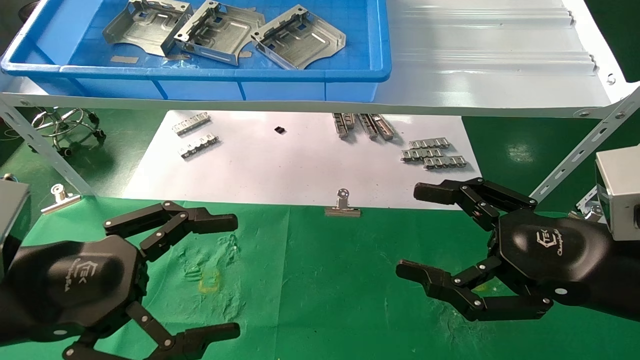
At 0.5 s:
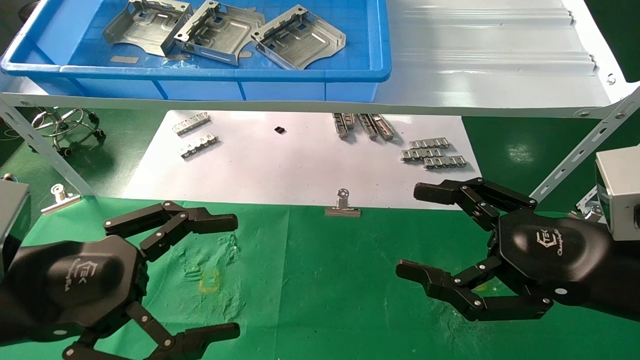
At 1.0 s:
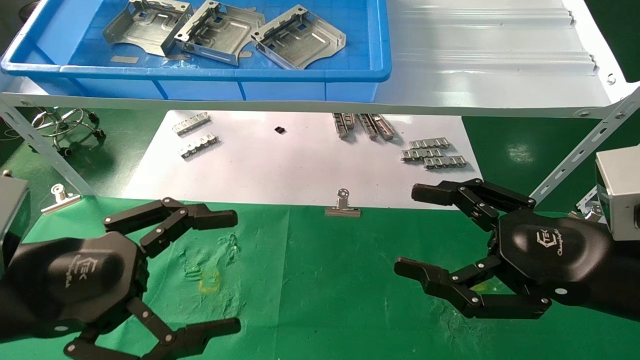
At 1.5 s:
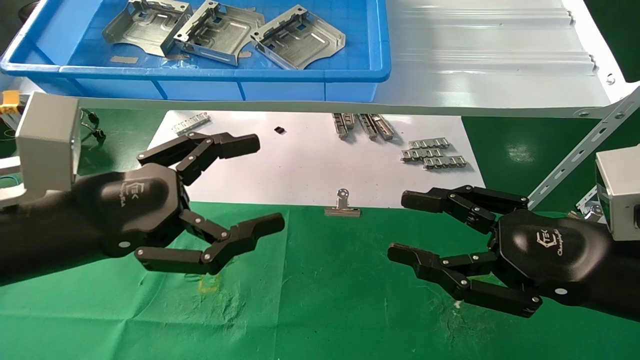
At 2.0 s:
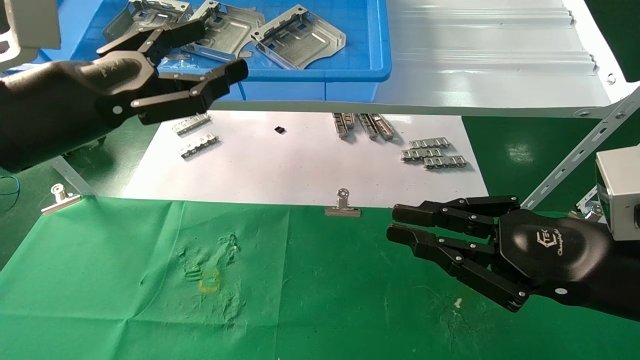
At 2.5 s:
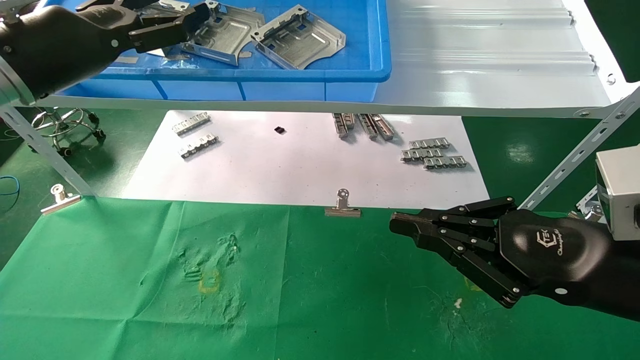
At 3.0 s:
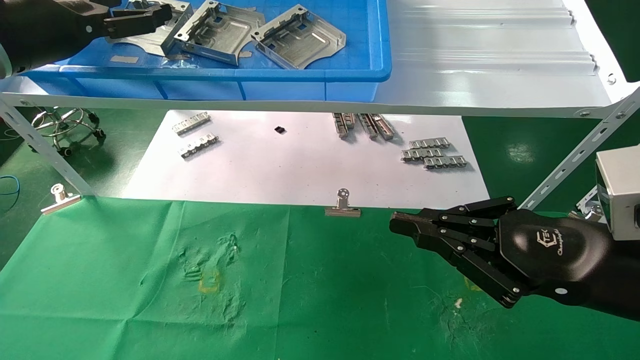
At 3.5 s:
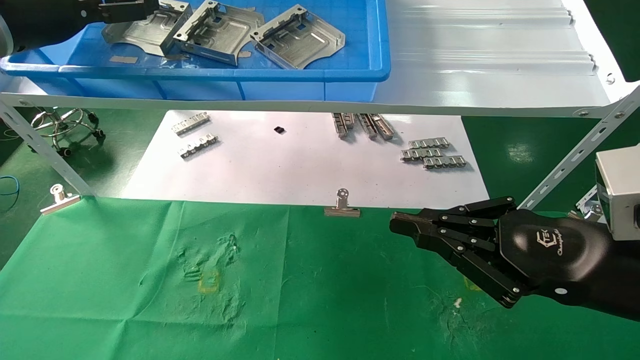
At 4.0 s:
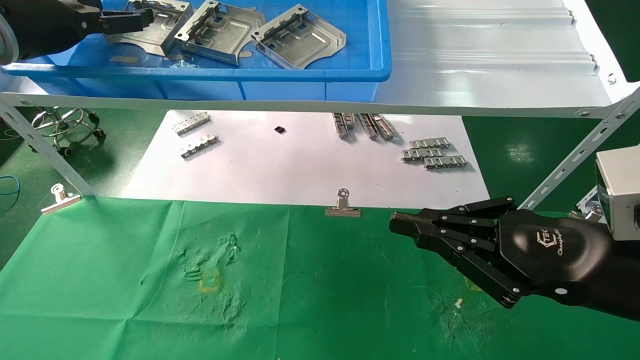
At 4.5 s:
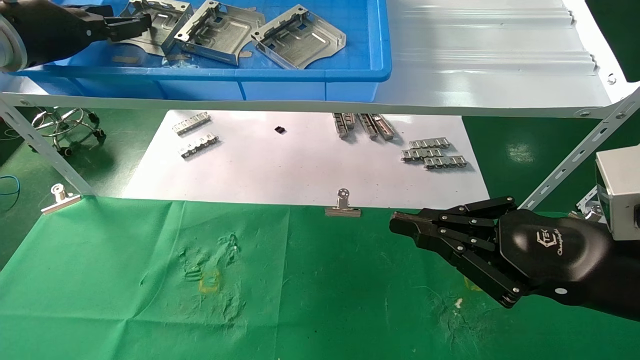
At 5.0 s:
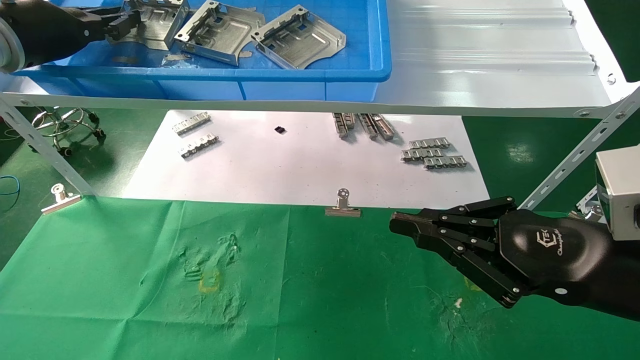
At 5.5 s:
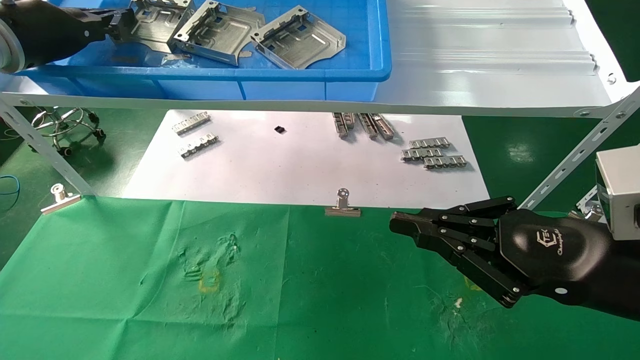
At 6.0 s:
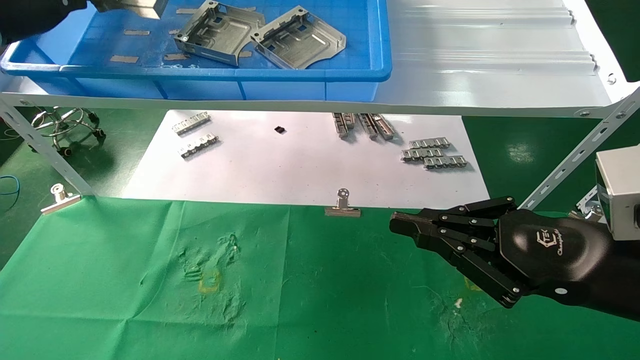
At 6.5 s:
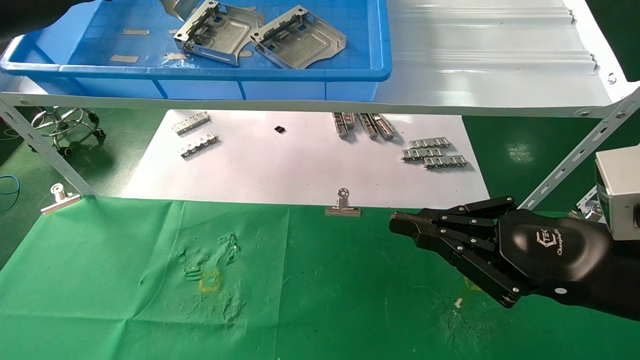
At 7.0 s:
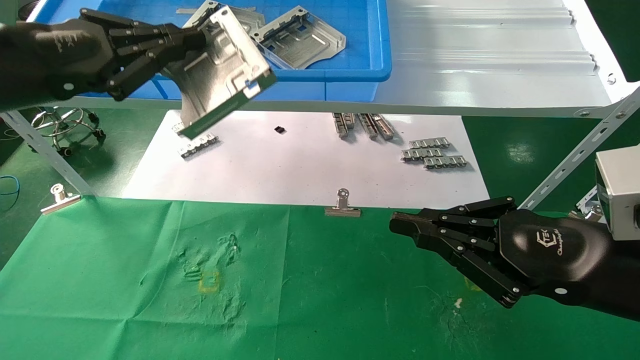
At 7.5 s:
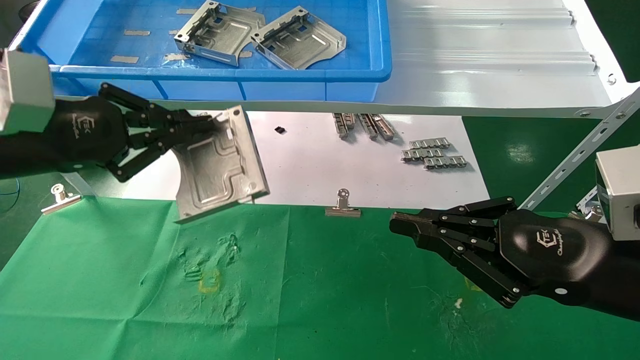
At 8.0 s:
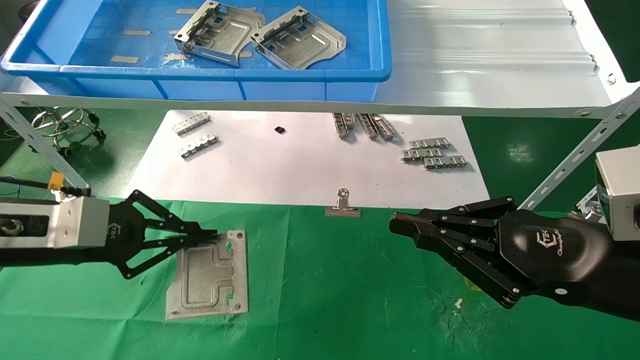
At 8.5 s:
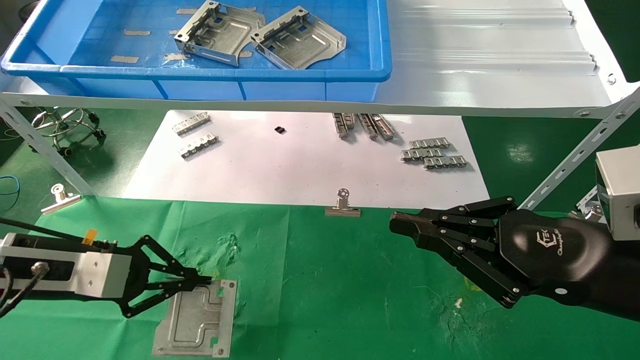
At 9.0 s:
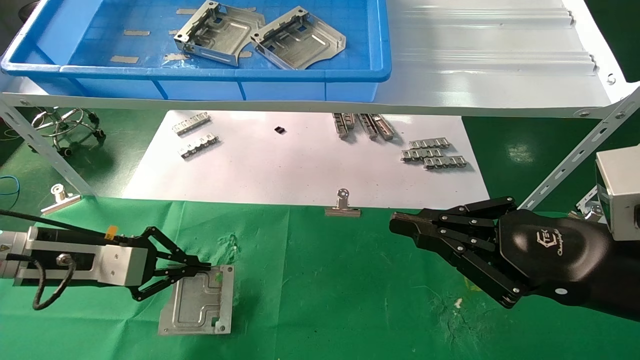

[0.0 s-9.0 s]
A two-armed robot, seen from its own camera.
Task of the whole recording: use the mechanical arm to pick up the parts and place them on the table.
Step, 1.5 to 5.0 s: Pick up the hard drive bracket from the feeding area.
0.0 to 2.0 s: The left gripper travels upward and forward by approximately 15 cm; the right gripper closes up.
2.0 to 4.5 s: The left gripper shifts roughly 20 cm forward, to the left and upward.
4.5 to 7.0 s: The left gripper travels backward by some 10 cm, and closes its fingers.
7.0 to 9.0 s: The left gripper shifts some 20 cm downward.

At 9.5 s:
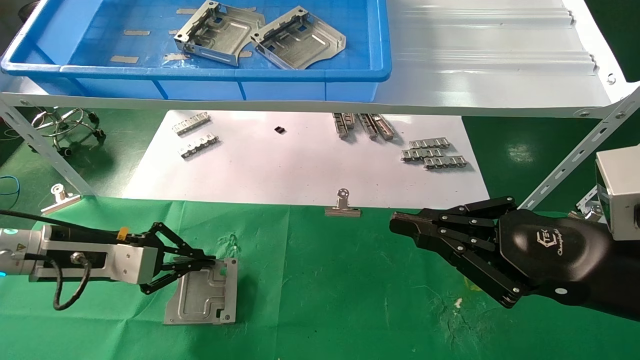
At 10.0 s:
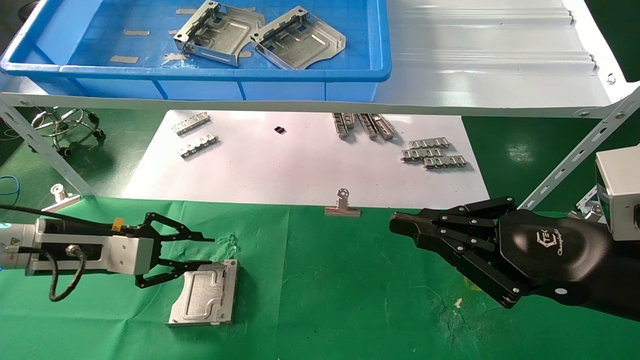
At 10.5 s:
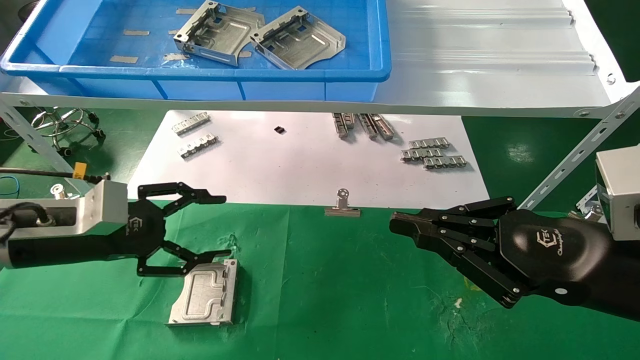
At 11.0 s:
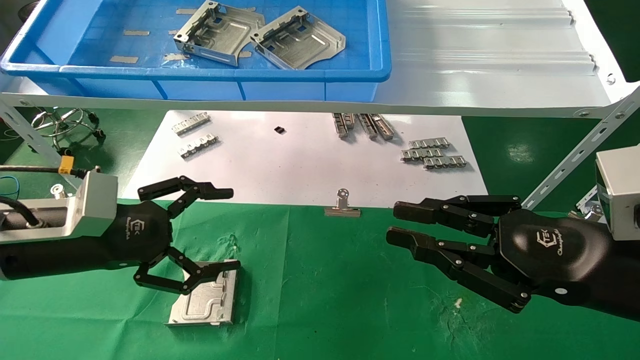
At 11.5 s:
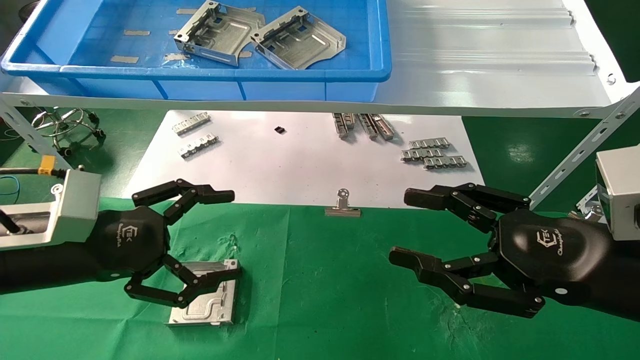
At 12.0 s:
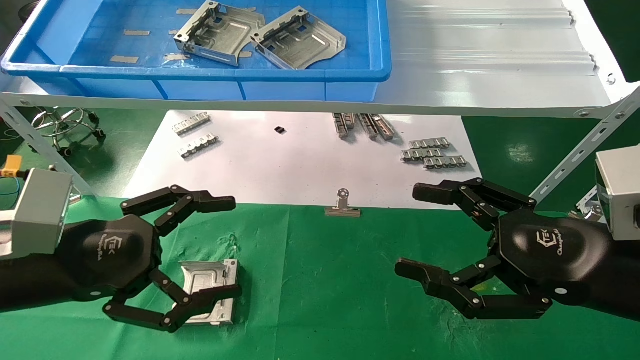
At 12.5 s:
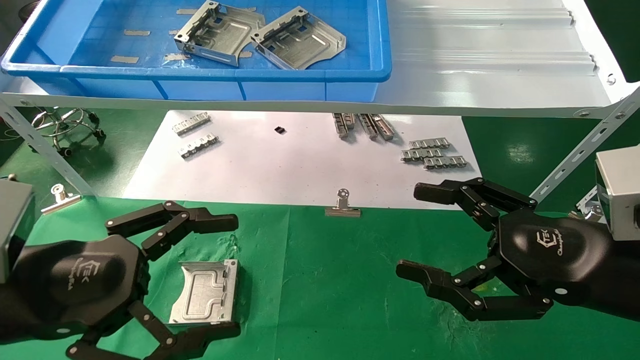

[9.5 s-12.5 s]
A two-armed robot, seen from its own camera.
Task of the whole recording: use the mechanical arm to pick up the parts and place them on the table.
9.5 to 11.0 s: The left gripper goes approximately 5 cm backward, and opens up.
11.0 to 12.5 s: The right gripper opens its fingers. The left gripper moves backward, approximately 10 cm.

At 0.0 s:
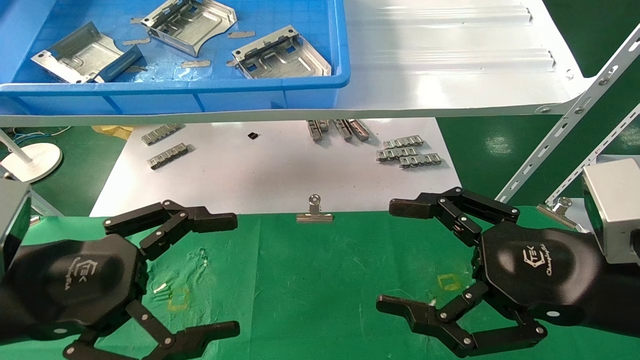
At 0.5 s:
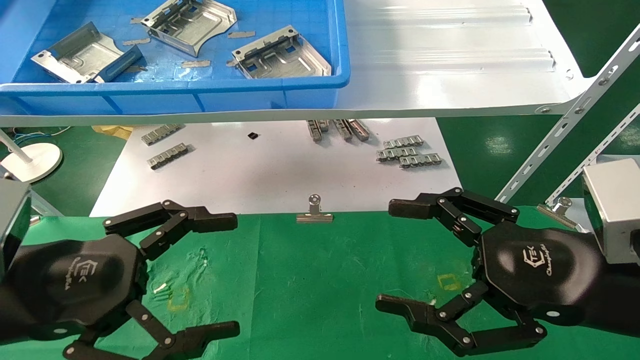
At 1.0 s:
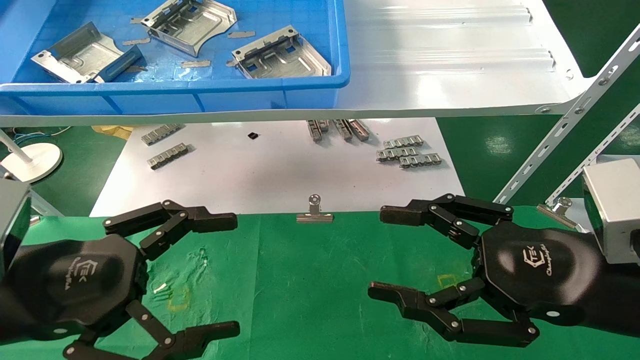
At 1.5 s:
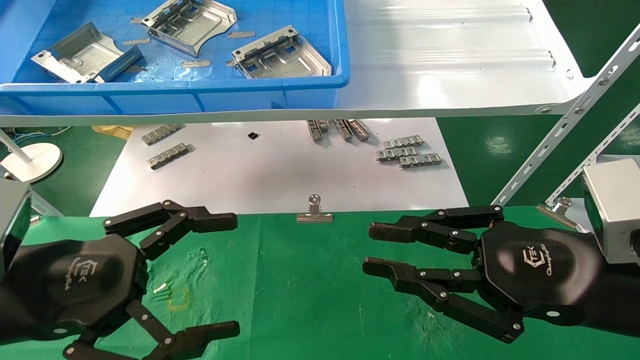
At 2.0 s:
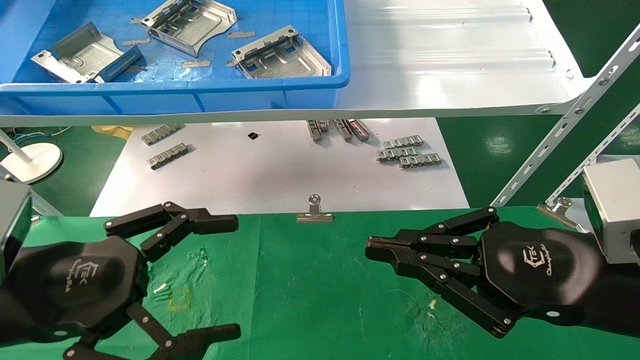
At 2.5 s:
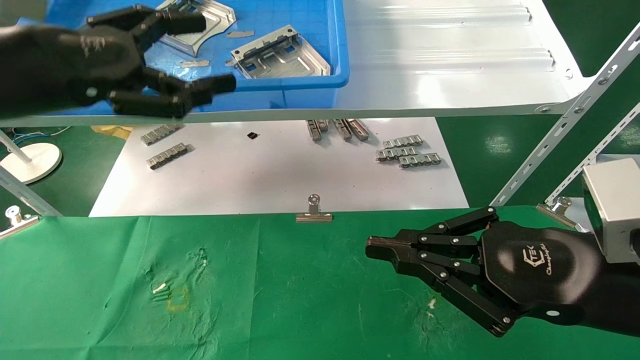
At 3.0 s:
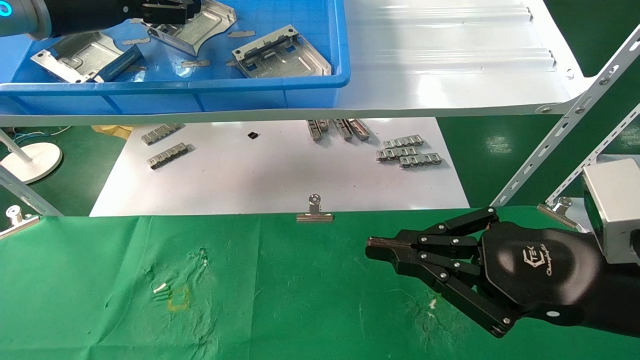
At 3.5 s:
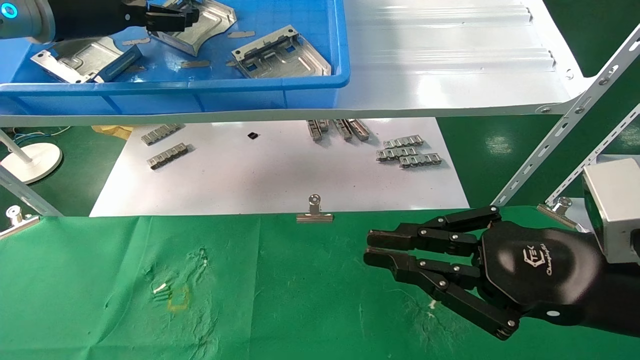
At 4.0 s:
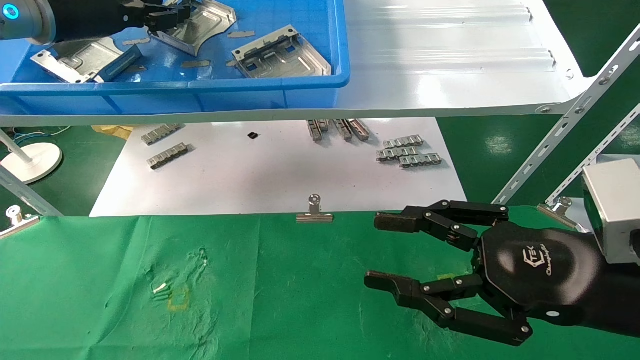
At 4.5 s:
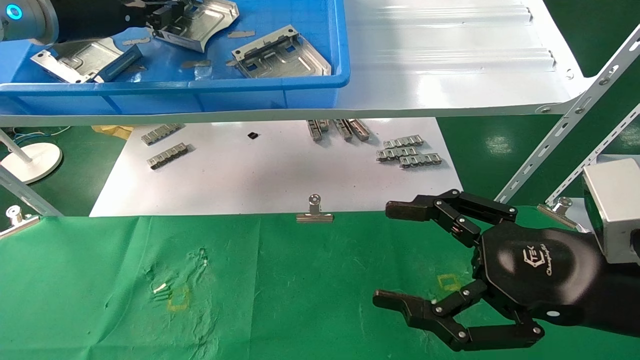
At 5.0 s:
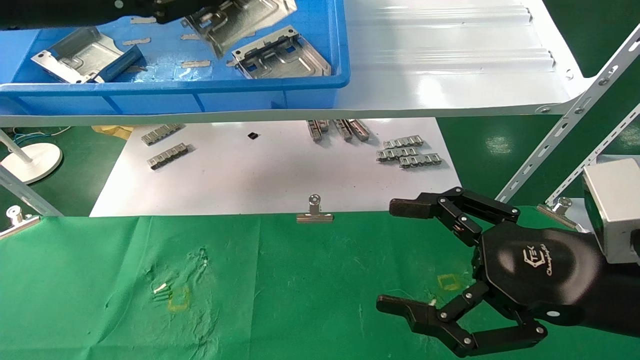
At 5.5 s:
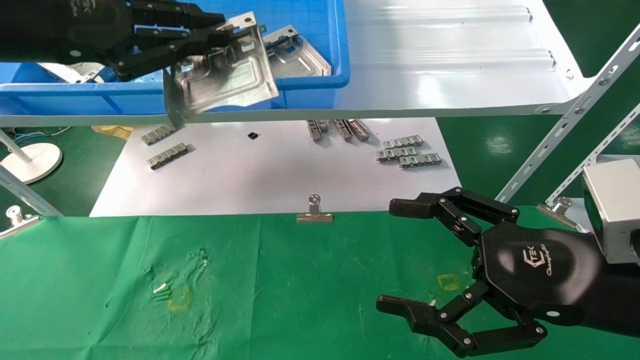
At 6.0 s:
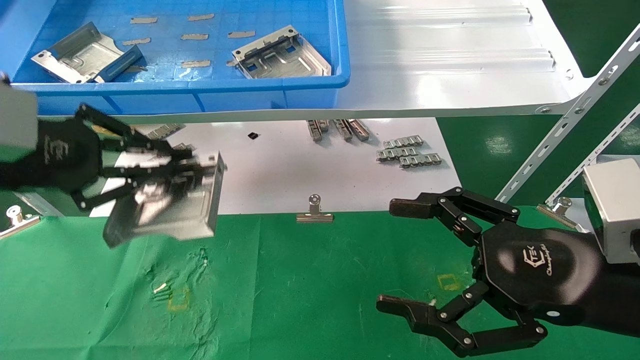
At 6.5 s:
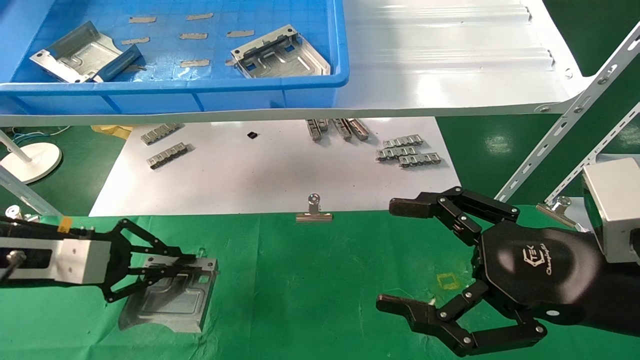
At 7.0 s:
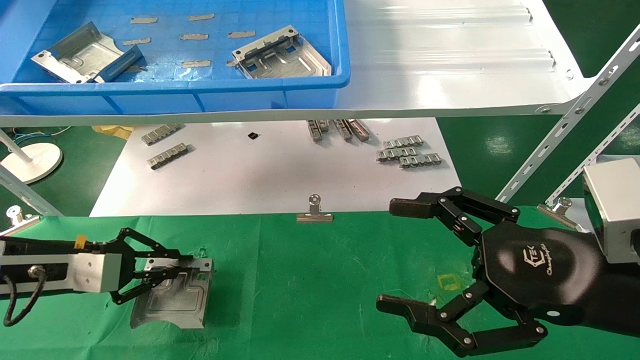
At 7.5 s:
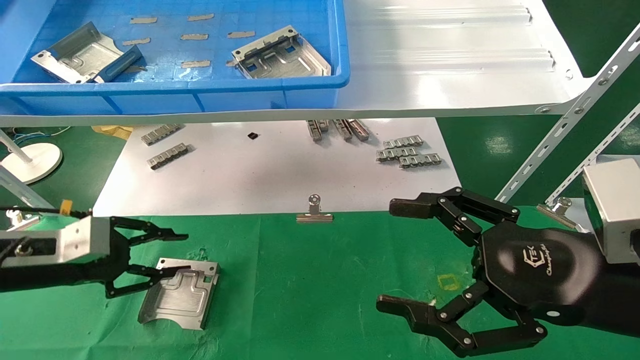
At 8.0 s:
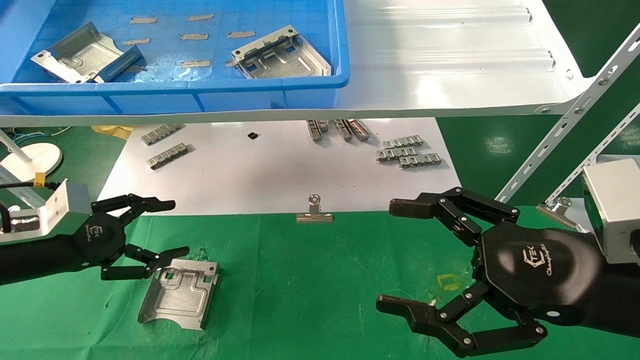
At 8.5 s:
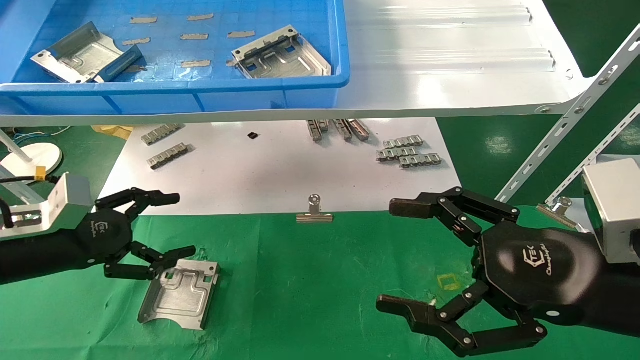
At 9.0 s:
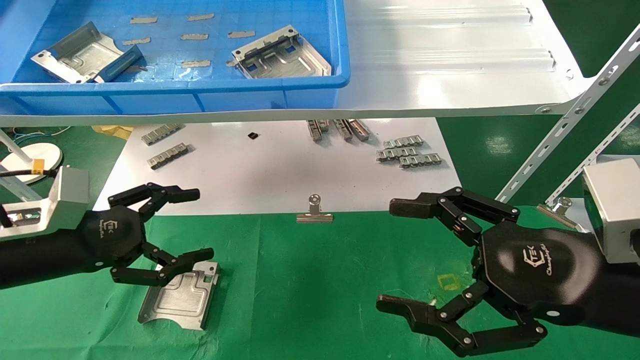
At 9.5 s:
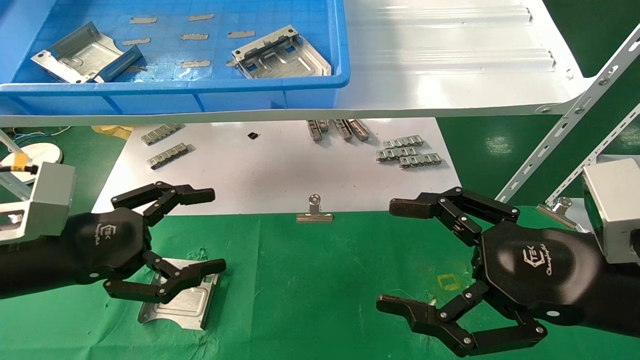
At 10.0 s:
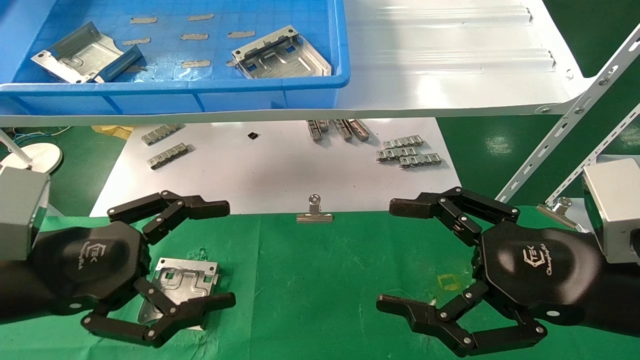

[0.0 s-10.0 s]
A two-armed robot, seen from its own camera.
Task of the whole recording: use the mechanical arm to pick up the parts and place them on the table.
Step, 2.5 to 4.0 s: Pick up the hard drive bracket from the feeding area.
Step, 4.5 to 7.0 s: Place the hard drive bracket into the box.
0.0 to 2.0 s: The right gripper closes up.
2.0 to 4.0 s: The left gripper is displaced forward and upward by roughly 30 cm, and closes.
4.0 to 6.0 s: The right gripper opens up; the left gripper is displaced backward and downward by about 20 cm, and closes its fingers.
6.0 to 8.0 s: The left gripper goes about 15 cm downward, and opens its fingers.
8.0 to 10.0 s: The left gripper travels backward and to the right by about 15 cm.
